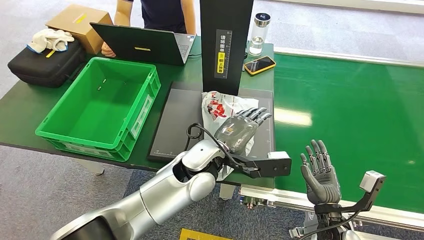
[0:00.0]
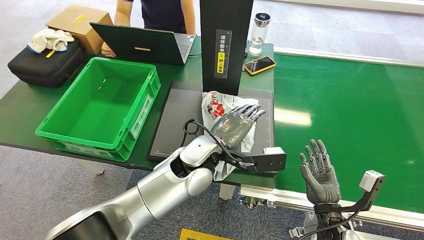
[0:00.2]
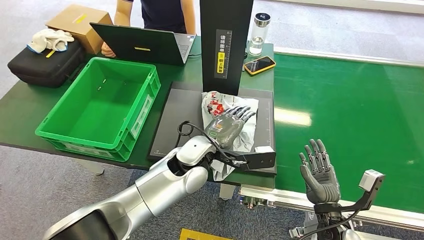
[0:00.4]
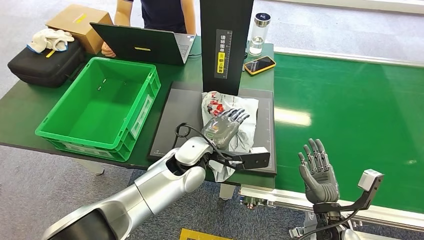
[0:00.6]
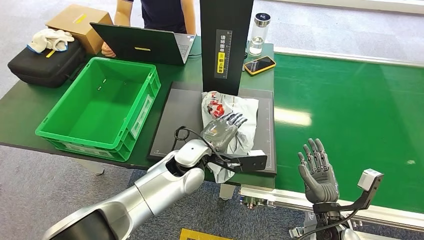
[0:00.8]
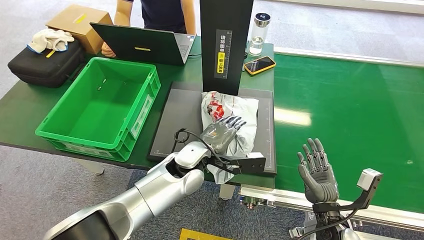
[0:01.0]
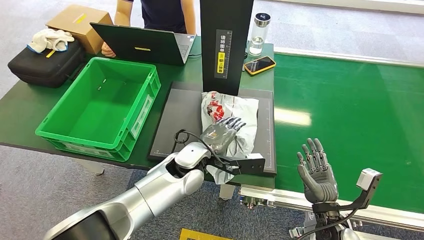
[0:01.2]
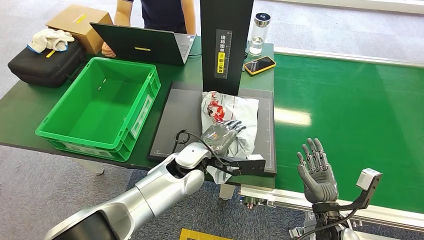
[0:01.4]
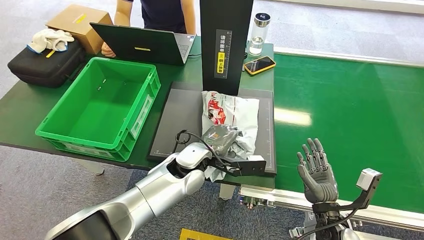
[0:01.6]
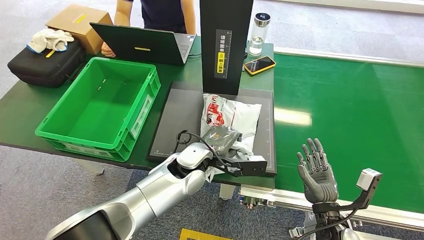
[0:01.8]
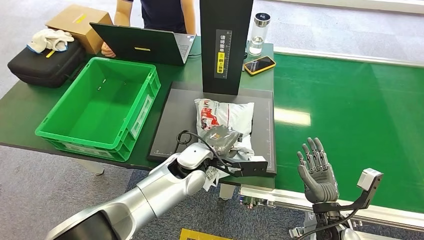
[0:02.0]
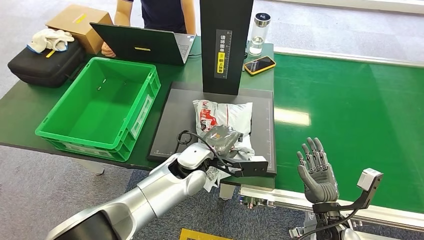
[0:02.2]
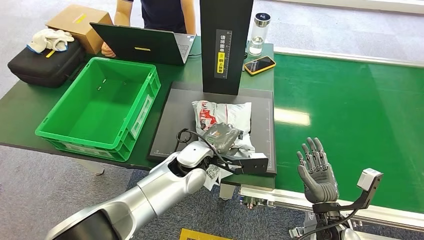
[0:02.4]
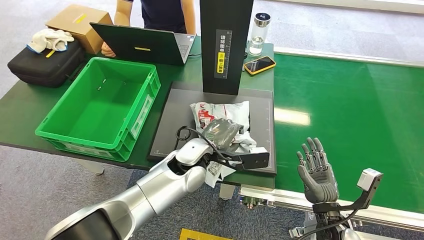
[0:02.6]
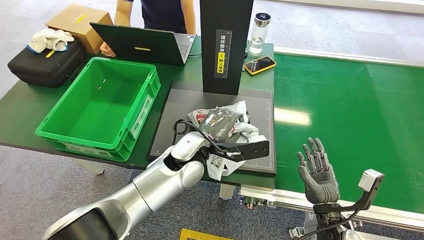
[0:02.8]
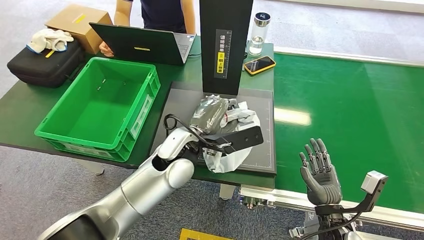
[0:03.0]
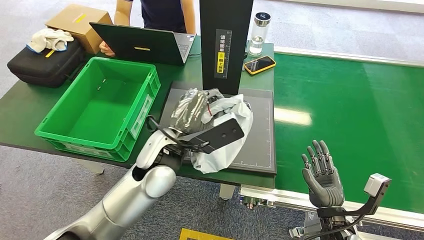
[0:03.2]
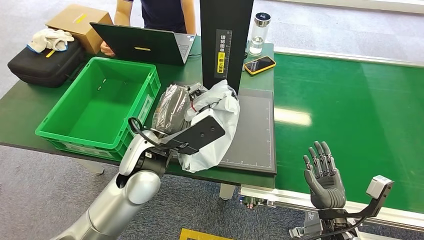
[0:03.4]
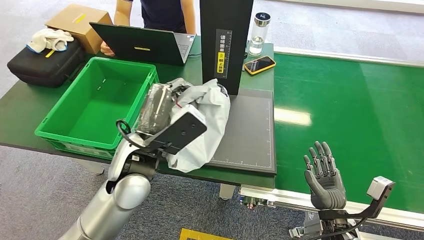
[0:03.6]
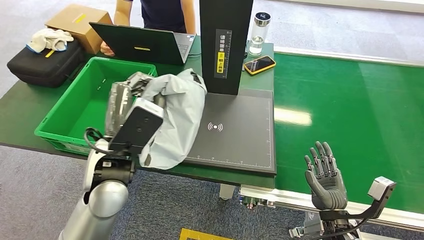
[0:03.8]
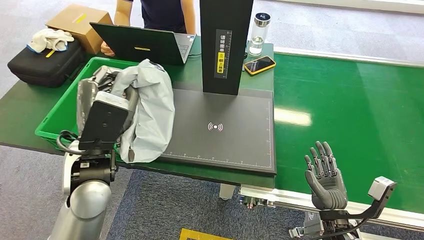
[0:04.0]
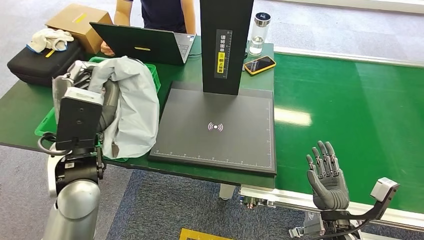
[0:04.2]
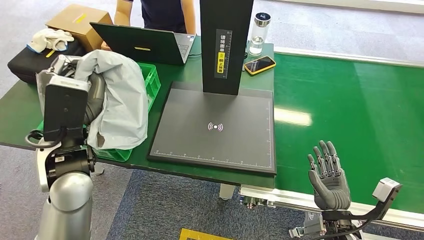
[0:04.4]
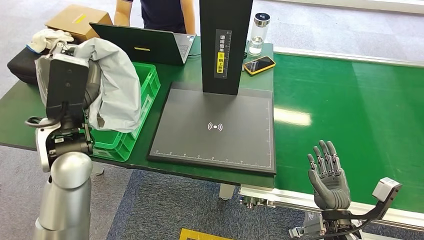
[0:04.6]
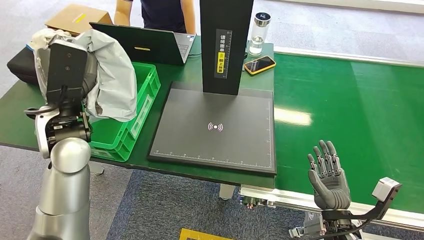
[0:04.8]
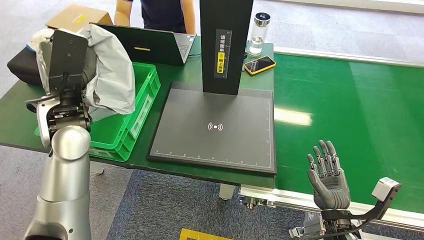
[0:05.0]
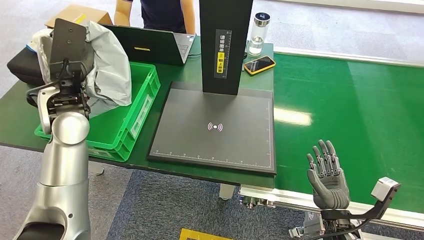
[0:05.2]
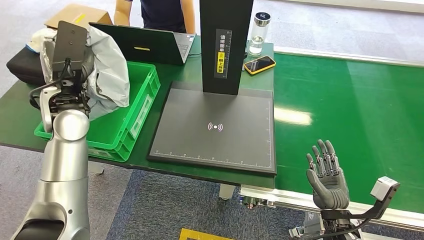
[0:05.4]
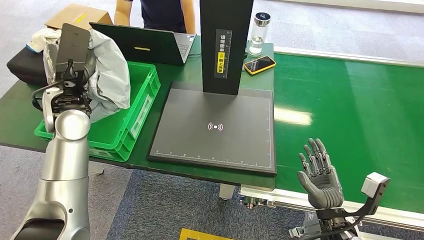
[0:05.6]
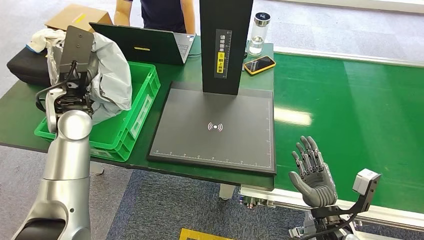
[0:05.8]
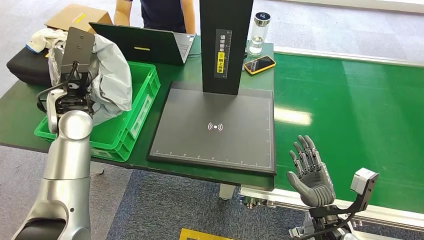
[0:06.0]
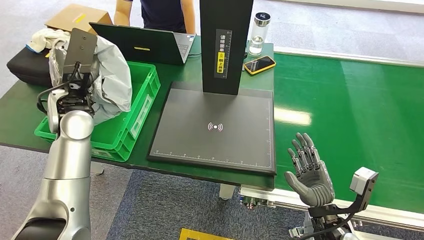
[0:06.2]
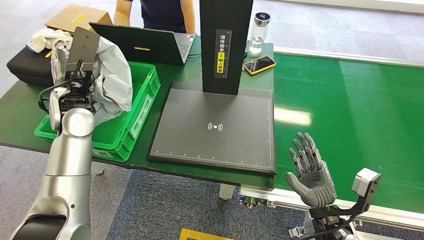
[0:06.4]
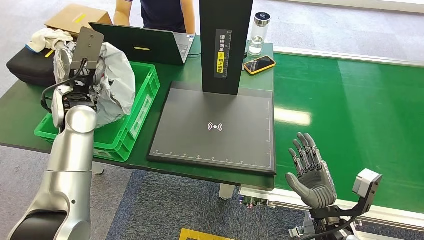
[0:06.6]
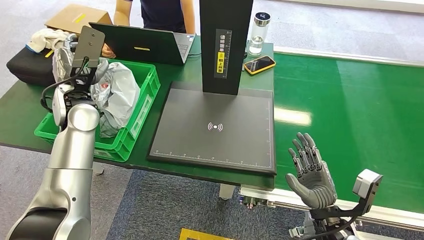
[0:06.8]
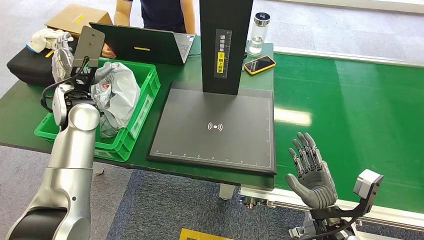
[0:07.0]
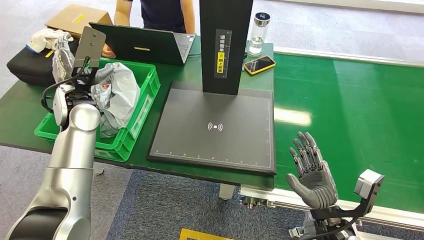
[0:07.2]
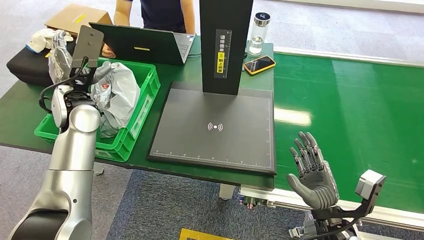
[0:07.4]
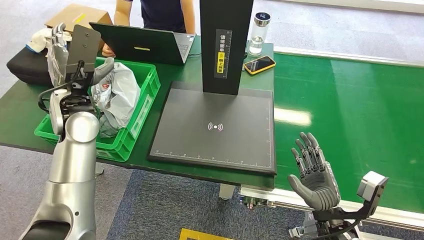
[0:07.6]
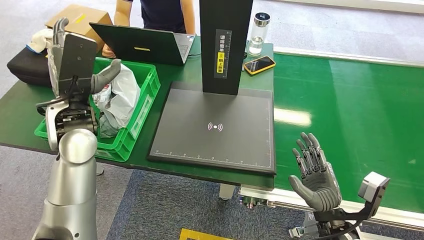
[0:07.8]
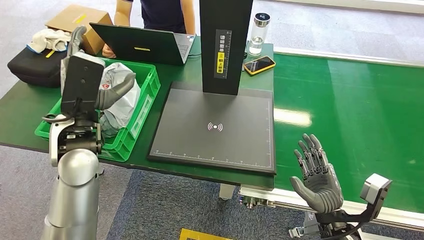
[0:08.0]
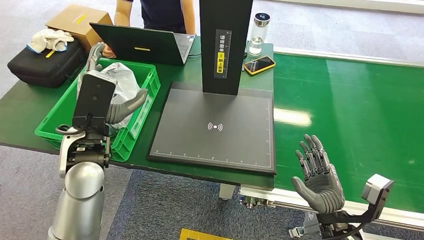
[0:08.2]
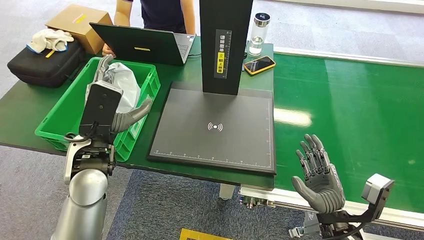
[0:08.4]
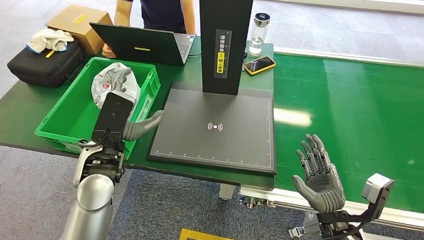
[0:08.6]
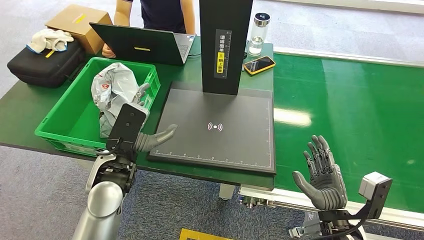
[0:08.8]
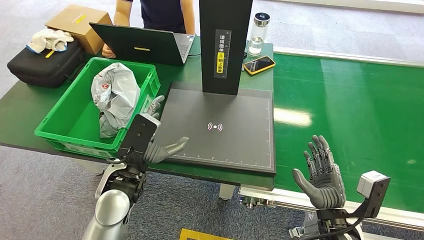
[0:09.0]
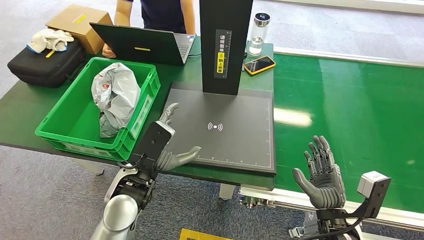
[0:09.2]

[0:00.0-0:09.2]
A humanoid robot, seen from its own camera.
Step, 0:00.0 to 0:03.6: Pick up the package from the inbound machine.
Step, 0:04.0 to 0:09.2: Place the package into the parcel locker.
0:00.0 to 0:01.6: The left hand shifts approximately 5 cm to the left.
0:01.6 to 0:03.0: The left hand travels upward by about 5 cm.
0:04.6 to 0:06.2: The left hand is displaced forward and to the left by some 10 cm.
0:06.2 to 0:07.6: The hands stay close to where they were, moving slightly.
0:07.6 to 0:09.2: The left hand shifts some 25 cm backward, to the right and downward.
